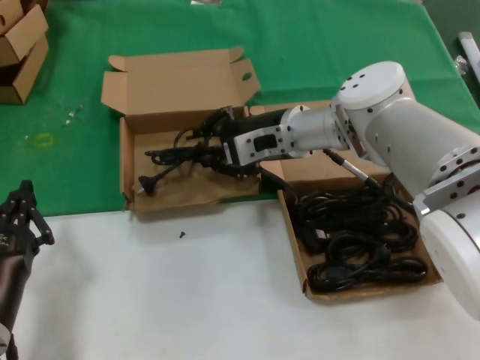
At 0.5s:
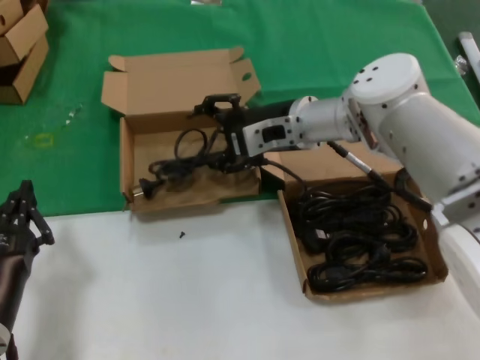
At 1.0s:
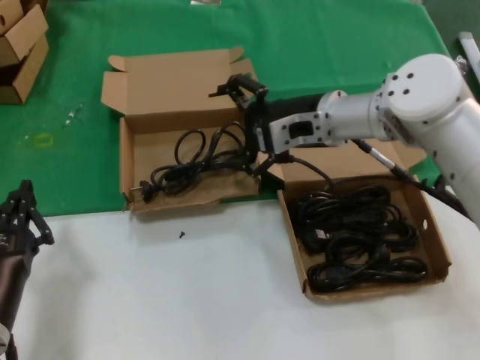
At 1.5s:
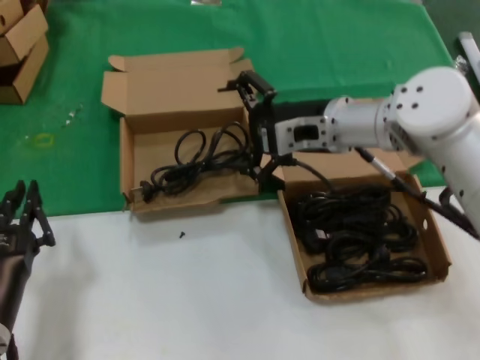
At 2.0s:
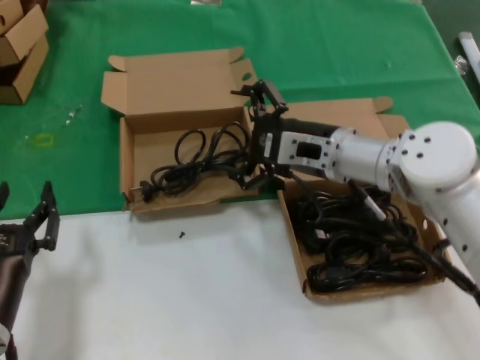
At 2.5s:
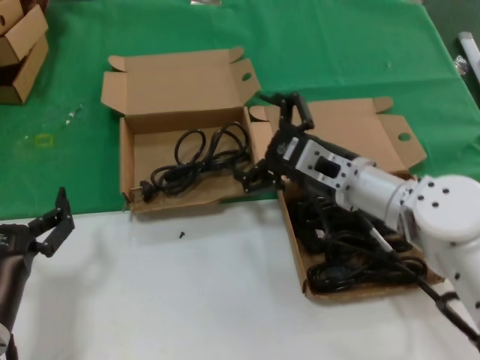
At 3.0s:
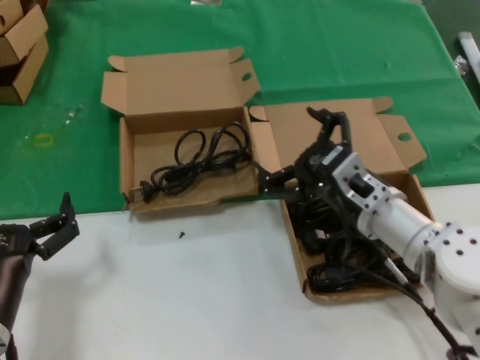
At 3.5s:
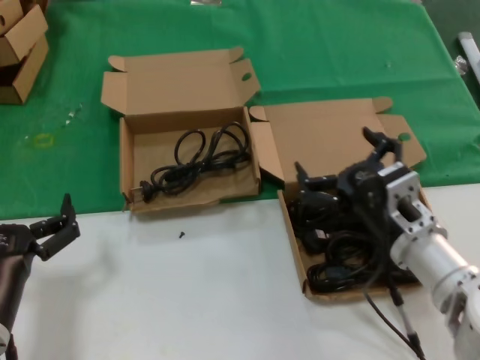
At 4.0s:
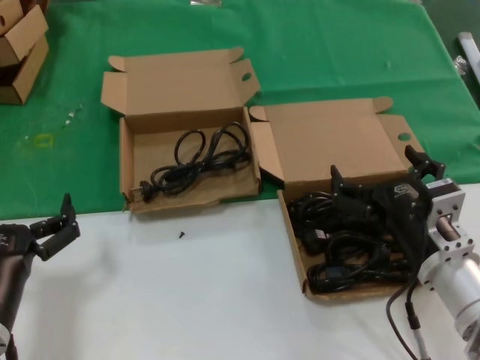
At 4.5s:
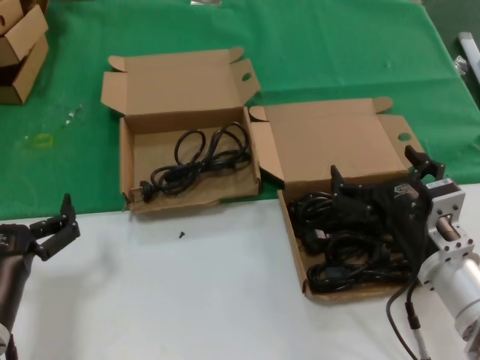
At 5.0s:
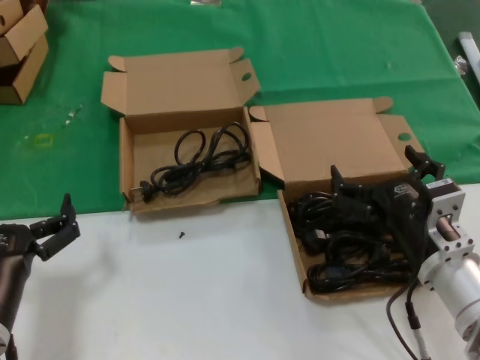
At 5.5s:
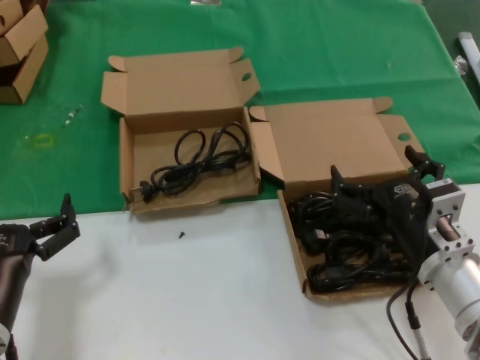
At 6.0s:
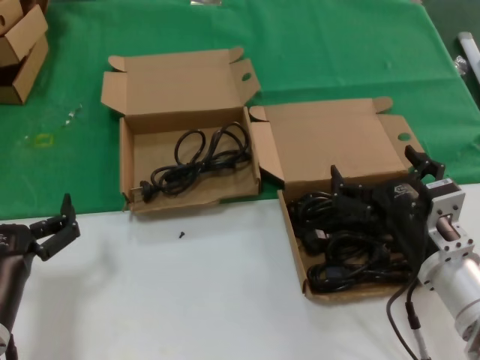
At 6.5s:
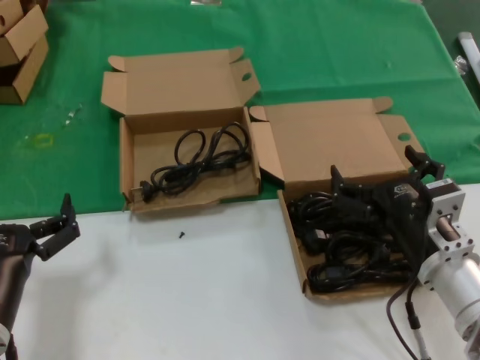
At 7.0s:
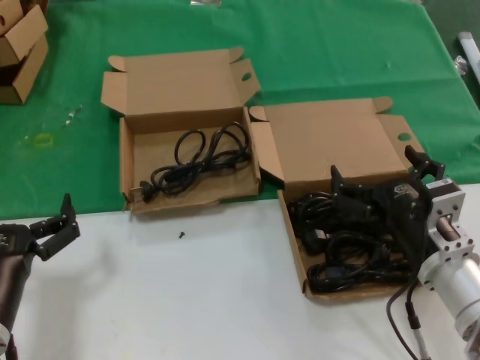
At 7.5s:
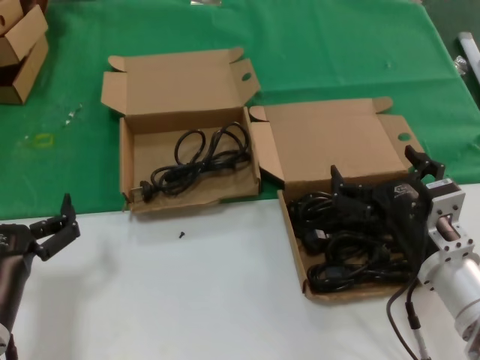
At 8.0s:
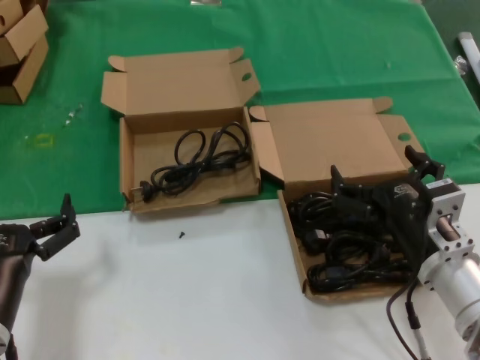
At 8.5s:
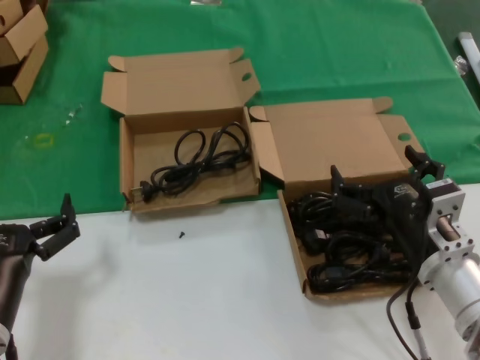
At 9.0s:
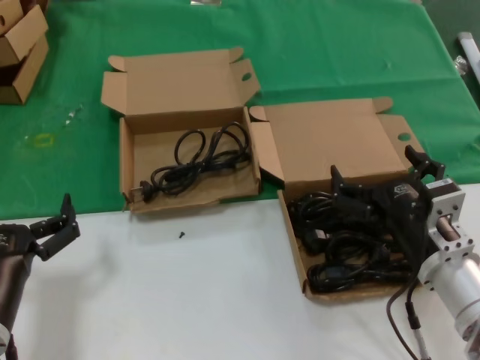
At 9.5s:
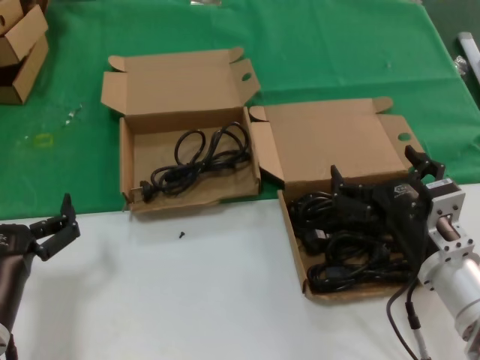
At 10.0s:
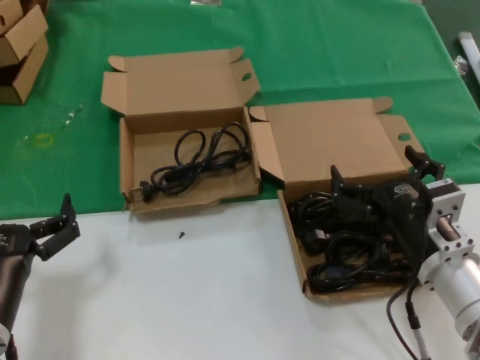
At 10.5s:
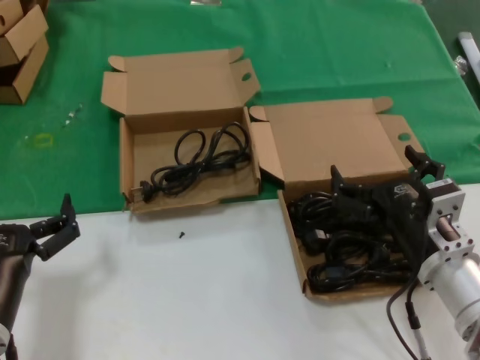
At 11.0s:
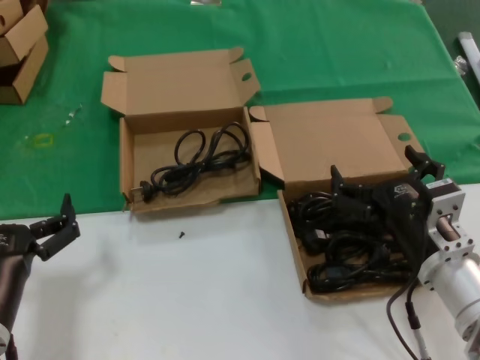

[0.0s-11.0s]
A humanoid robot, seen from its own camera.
Task of the whole recording: take the parts from the box containing them and put them into an empty box.
0.0s to 2.0s: The right hand heads backward, covering some 5 cm.
2.0s to 3.5s: The right hand moves backward and downward, about 15 cm.
3.5s to 5.5s: The hands make only small movements.
5.5s to 11.0s: Both hands stay about where they are.
